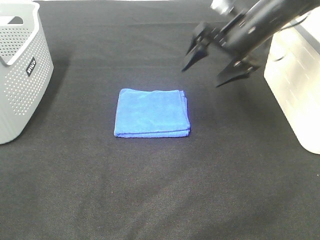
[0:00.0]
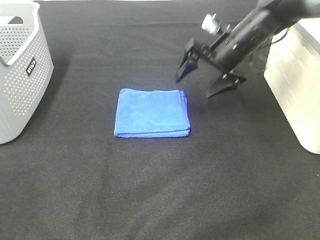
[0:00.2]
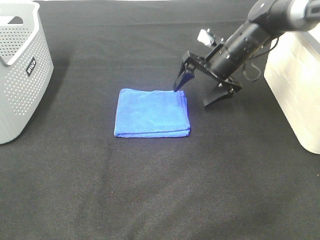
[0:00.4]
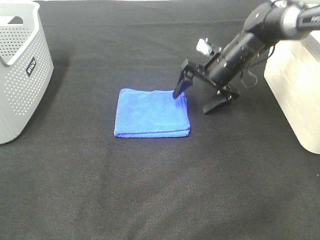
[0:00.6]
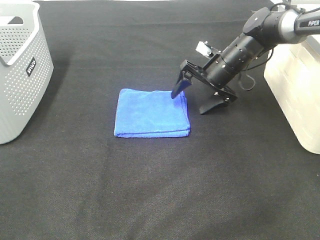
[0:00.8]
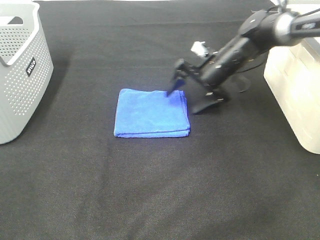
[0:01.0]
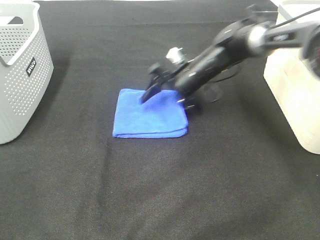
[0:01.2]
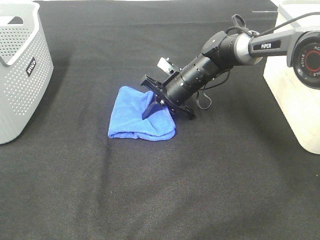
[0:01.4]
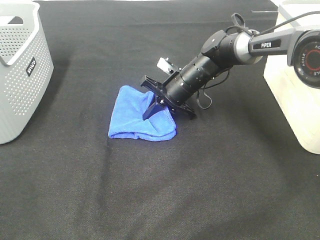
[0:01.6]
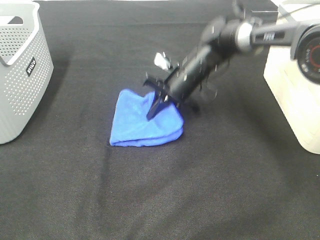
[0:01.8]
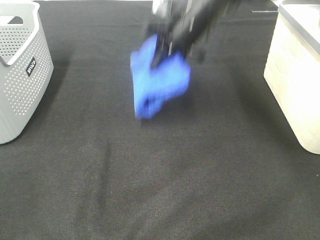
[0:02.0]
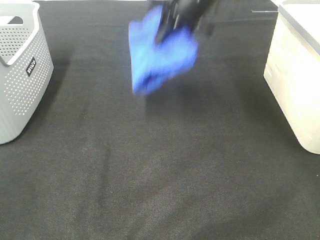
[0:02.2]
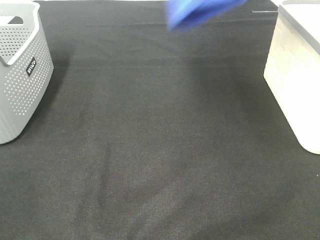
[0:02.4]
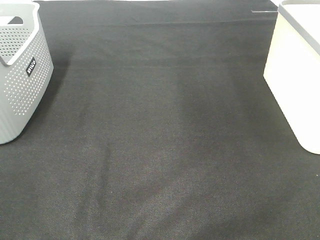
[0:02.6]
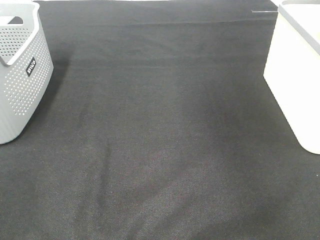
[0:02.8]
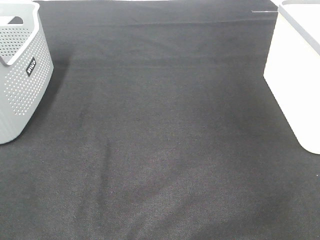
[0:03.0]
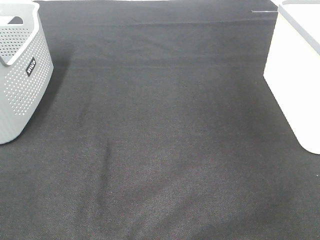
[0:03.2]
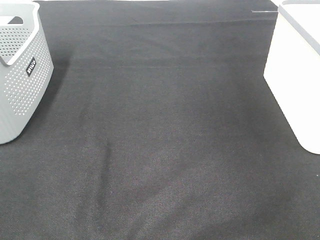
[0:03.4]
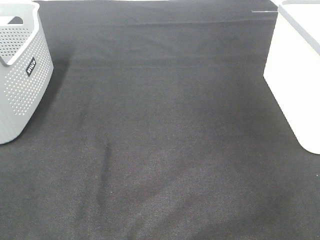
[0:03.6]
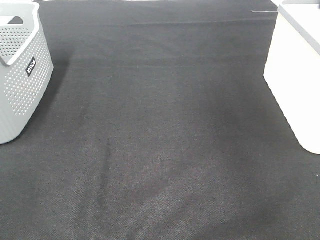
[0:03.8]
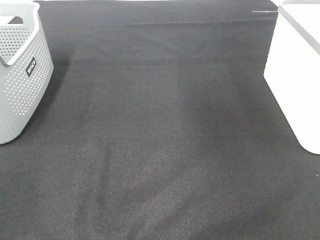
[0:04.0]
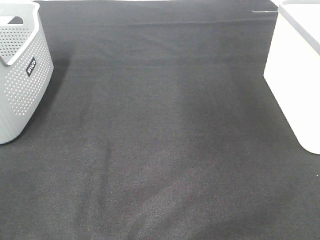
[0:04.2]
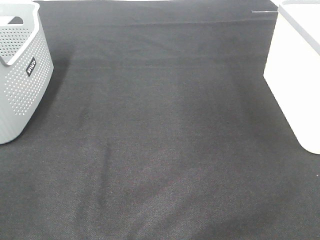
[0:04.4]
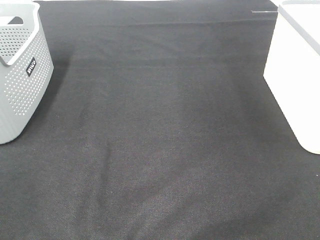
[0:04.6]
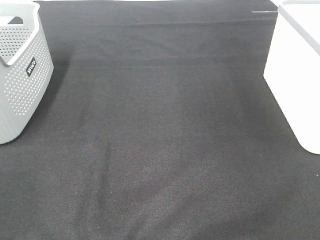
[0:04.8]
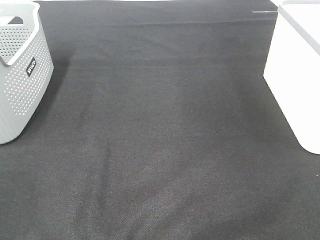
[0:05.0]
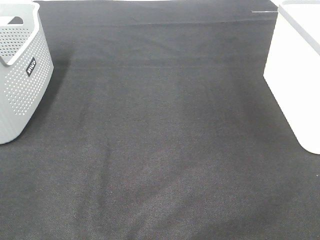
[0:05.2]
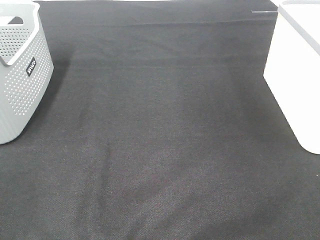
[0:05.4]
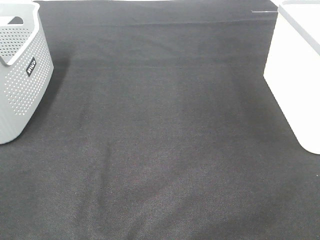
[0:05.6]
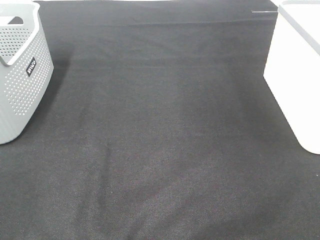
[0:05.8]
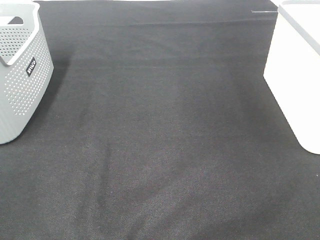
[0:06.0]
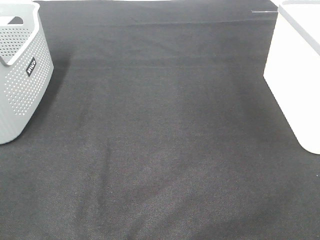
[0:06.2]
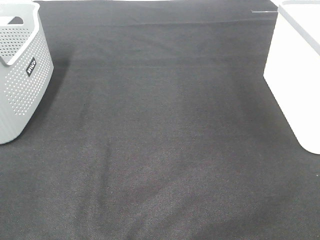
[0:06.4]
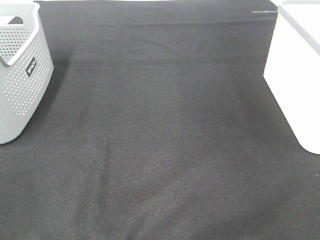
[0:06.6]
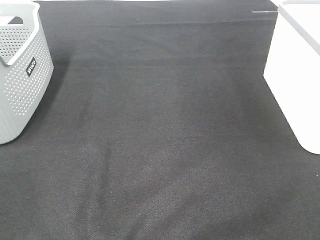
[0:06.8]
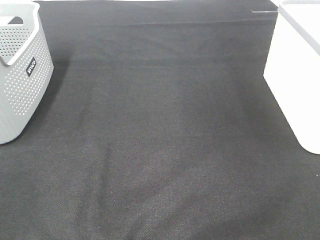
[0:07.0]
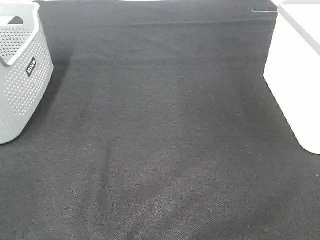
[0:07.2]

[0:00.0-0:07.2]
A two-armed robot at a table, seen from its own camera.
Step, 0:01.4 to 0:03.4: Right hand: place the blue towel in right basket.
0:00.0 to 0:01.4: The right gripper travels downward and to the left by some 20 cm, and closes.
0:01.4 to 0:02.8: The right gripper shifts roughly 50 cm upward and to the right.
0:05.8 to 0:07.2: Both grippers stay about where they are.

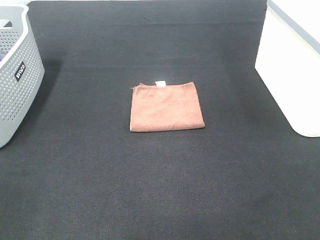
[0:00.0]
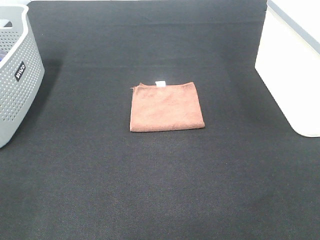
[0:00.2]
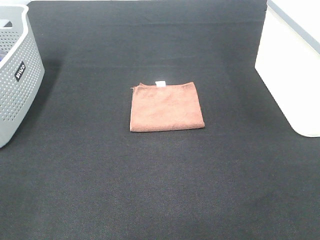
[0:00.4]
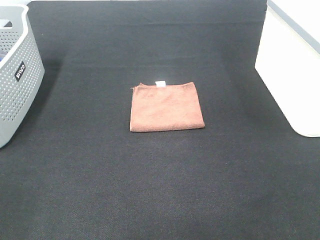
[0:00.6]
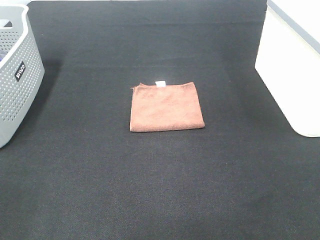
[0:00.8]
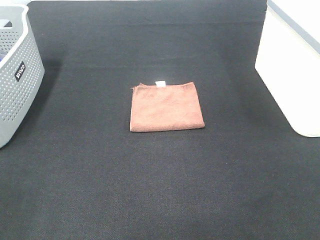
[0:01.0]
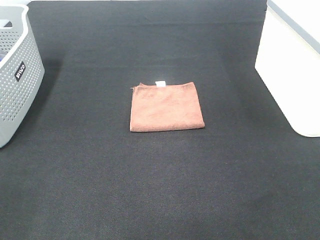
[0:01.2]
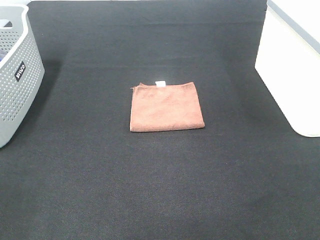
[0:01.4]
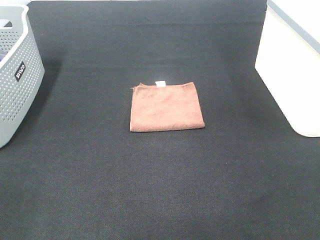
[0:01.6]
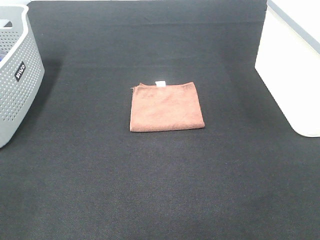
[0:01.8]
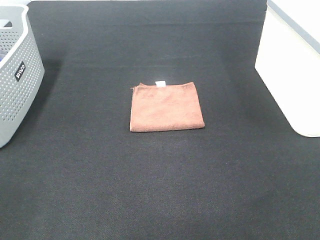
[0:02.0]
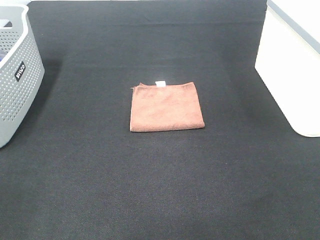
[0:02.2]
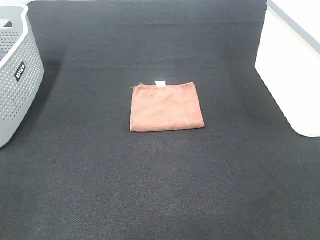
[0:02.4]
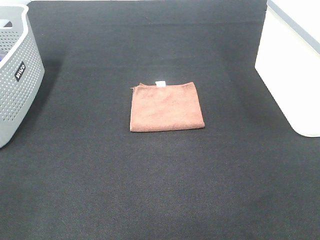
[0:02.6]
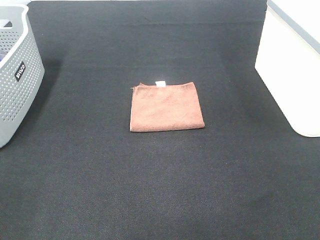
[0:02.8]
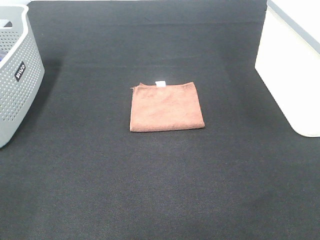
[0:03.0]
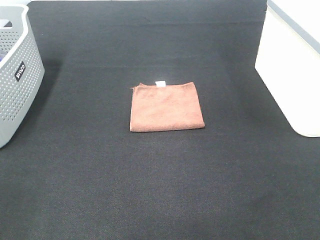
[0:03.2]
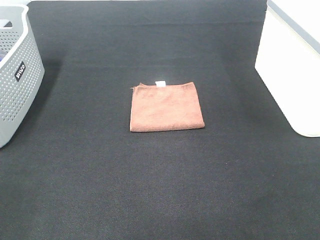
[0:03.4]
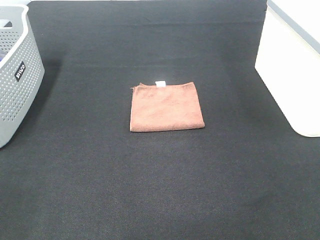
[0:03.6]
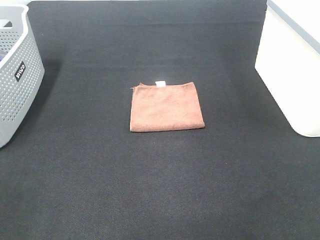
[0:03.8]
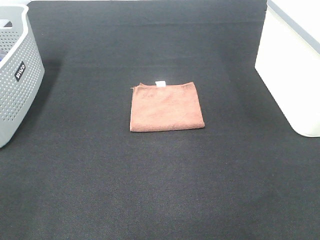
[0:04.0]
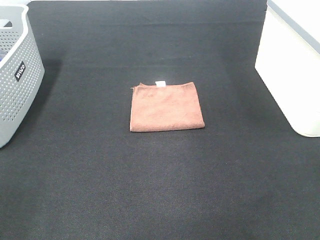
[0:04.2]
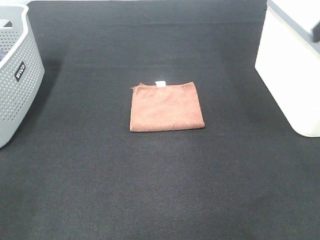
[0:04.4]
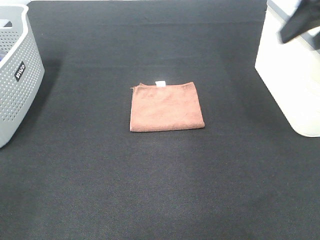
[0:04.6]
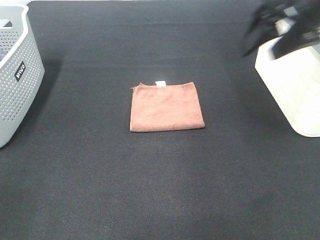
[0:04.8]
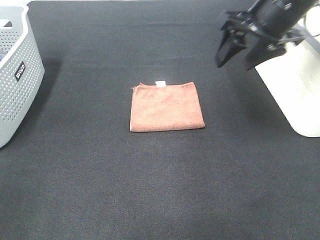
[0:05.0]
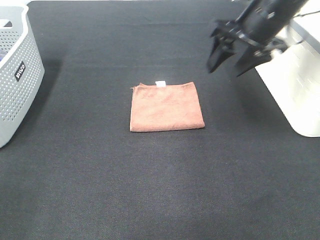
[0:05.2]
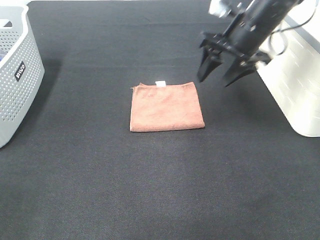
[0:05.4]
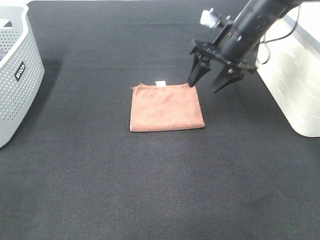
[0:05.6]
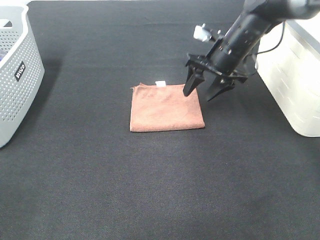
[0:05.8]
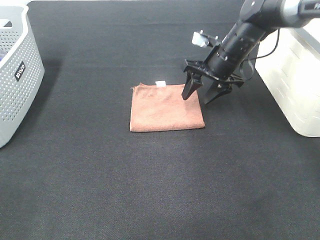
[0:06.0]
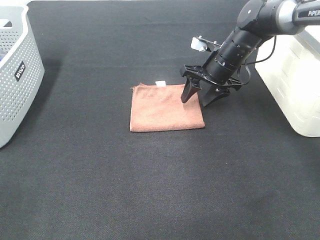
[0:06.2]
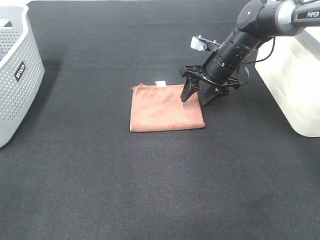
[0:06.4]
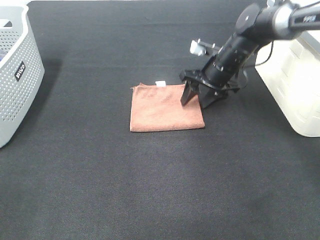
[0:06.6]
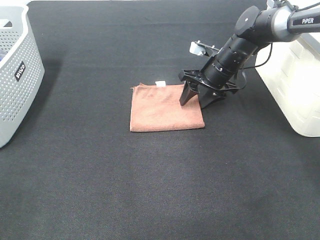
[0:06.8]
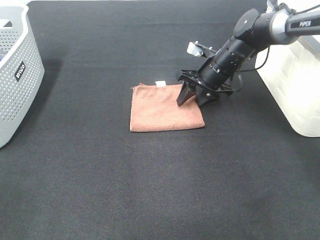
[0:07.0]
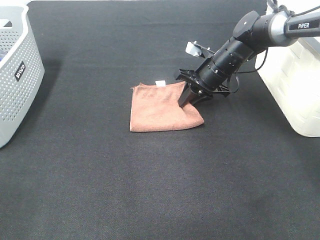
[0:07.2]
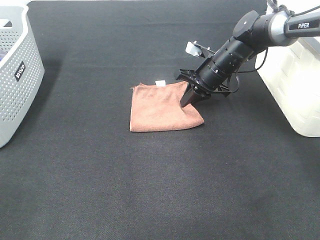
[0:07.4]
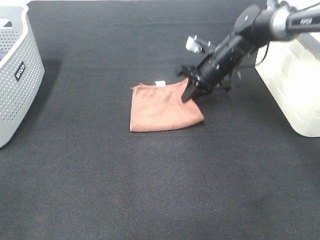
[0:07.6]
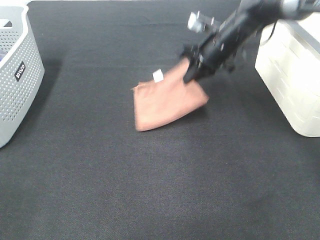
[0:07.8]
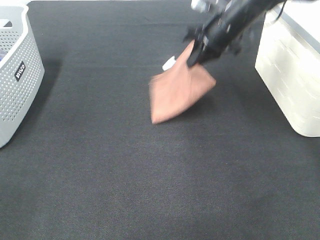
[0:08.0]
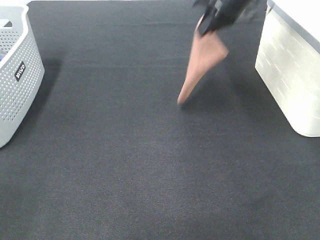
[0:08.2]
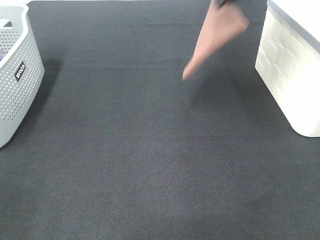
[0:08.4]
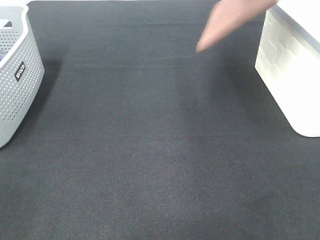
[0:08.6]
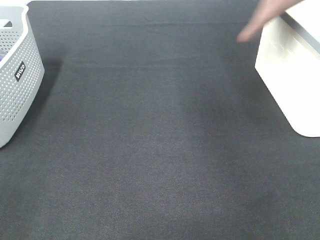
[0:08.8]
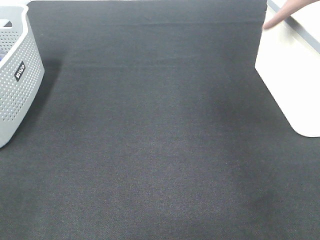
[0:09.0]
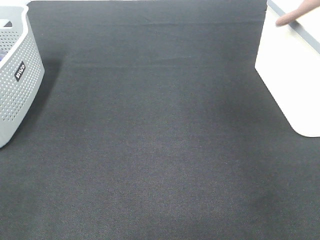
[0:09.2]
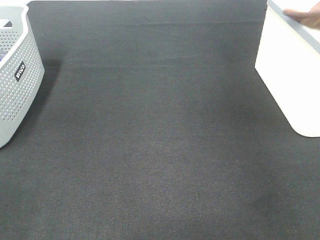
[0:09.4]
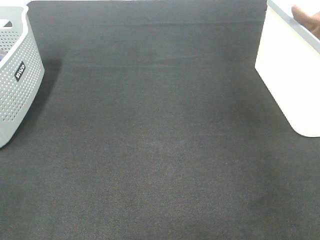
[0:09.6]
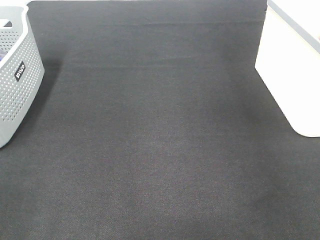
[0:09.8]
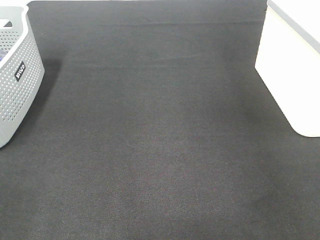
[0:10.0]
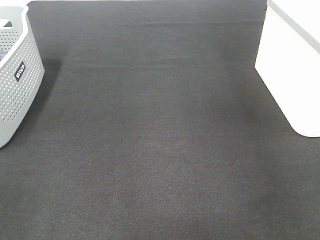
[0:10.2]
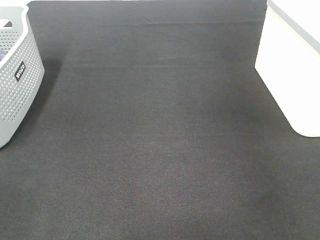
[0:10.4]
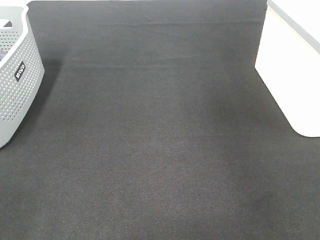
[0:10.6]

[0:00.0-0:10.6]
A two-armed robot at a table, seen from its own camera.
Step, 0:00.0 to 0:07.2: Right hand: grab the folded brown towel.
Step, 0:07.4 to 0:10.2: Right hand: place the brown towel in right basket.
0:00.0 to 0:03.0: The two grippers keep their place.
0:03.0 to 0:04.6: The right gripper is displaced forward by roughly 30 cm.
0:04.6 to 0:06.0: The right gripper travels downward, forward and to the left by some 30 cm.
0:06.0 to 0:07.6: The right gripper closes.
0:07.6 to 0:09.0: The right gripper goes about 35 cm upward and to the right.
0:09.0 to 0:10.6: The right gripper travels downward and back again, roughly 10 cm each way, and opens up.

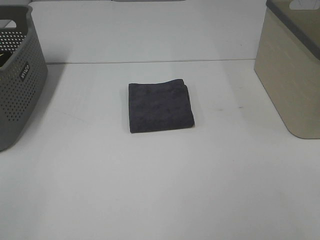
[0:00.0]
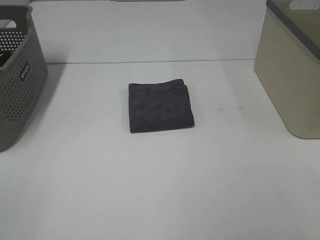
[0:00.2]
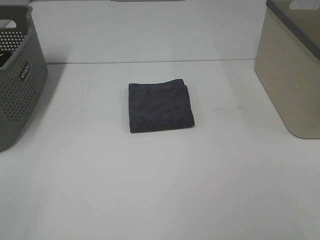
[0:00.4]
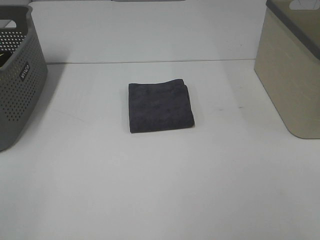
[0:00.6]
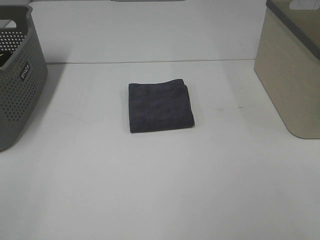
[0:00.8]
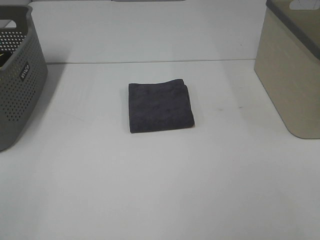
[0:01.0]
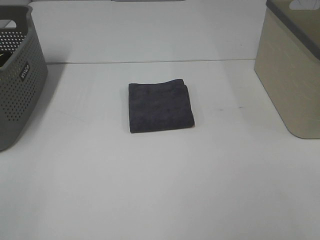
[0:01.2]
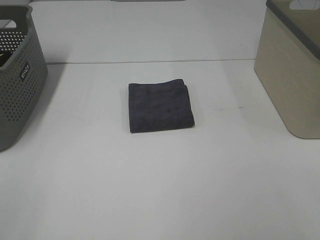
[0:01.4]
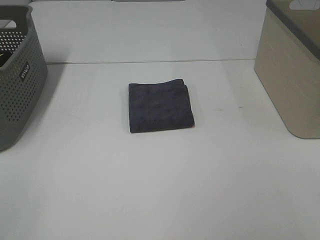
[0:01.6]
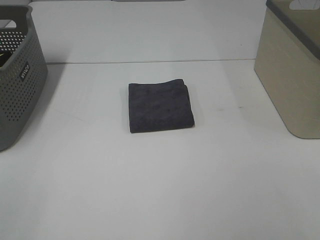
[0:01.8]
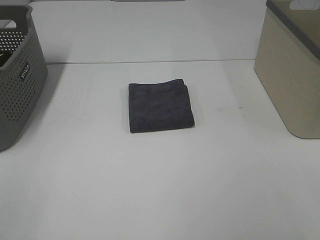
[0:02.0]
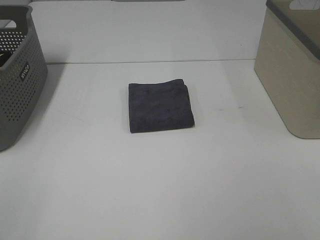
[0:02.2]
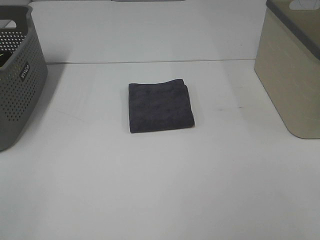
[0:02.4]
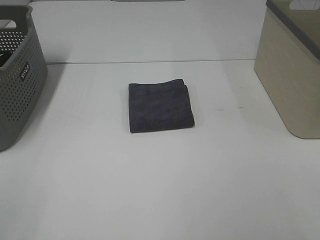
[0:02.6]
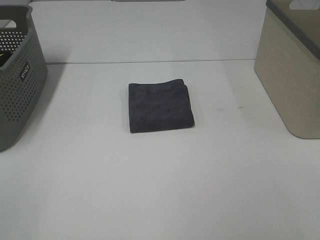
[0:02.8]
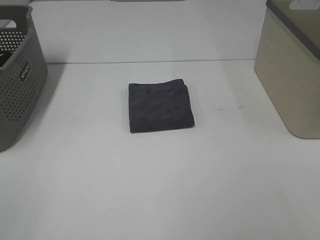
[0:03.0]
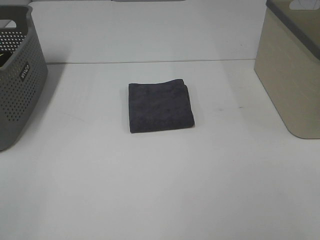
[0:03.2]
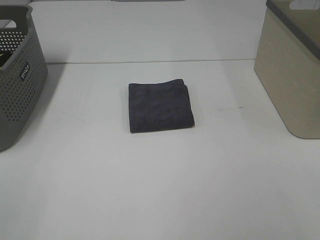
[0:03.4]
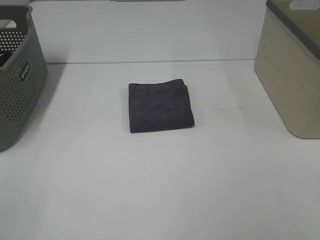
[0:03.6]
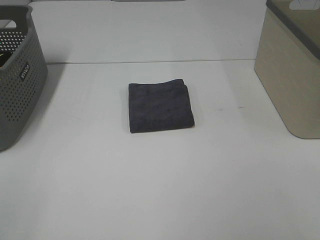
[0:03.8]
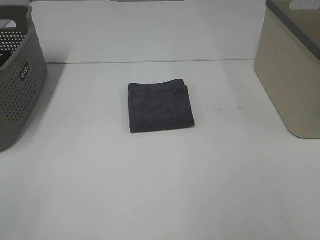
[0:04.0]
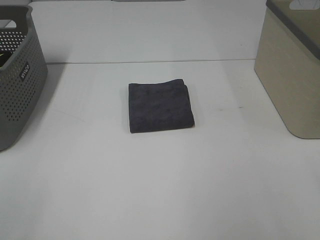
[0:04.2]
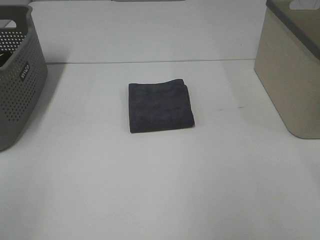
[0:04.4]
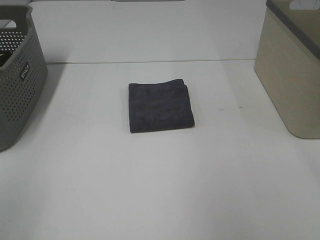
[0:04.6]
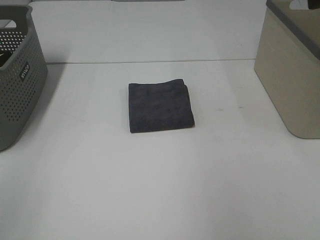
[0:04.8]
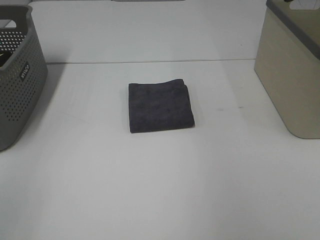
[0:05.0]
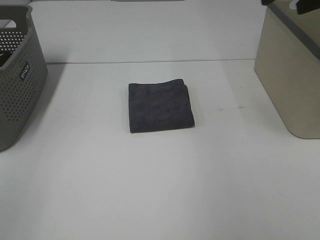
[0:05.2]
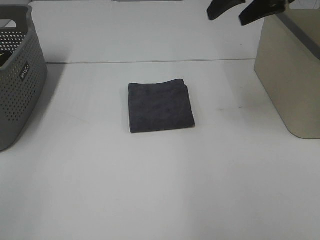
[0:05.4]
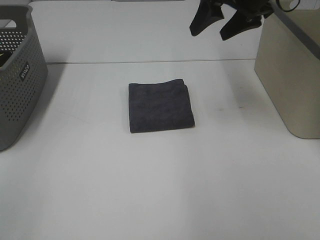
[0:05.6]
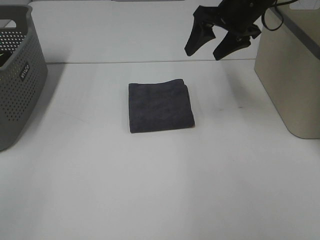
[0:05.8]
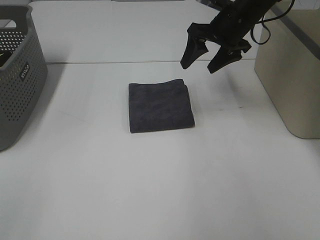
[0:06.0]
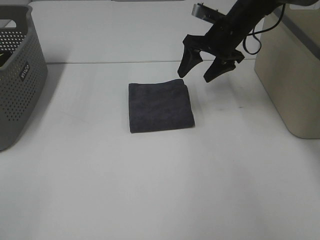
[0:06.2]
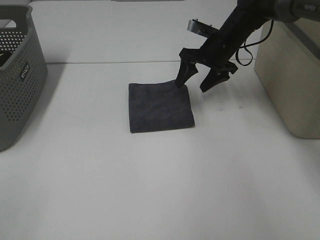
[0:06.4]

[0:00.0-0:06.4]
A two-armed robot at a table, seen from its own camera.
0:00.0 to 0:03.2: The two grippers keep their place.
0:04.8 to 0:06.4: The right gripper goes some 35 cm downward, forward and to the left.
